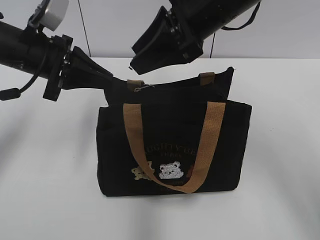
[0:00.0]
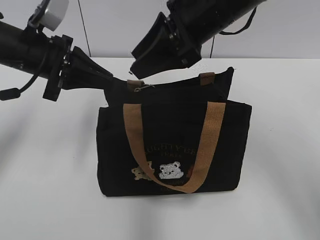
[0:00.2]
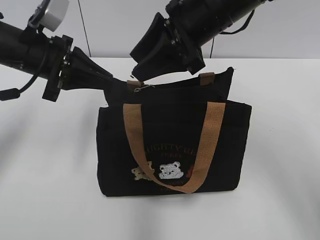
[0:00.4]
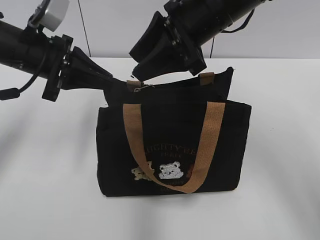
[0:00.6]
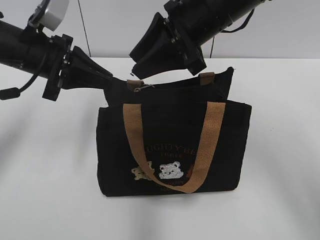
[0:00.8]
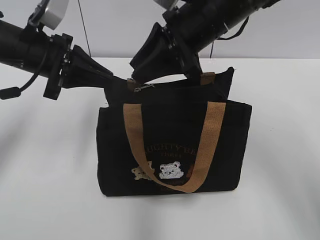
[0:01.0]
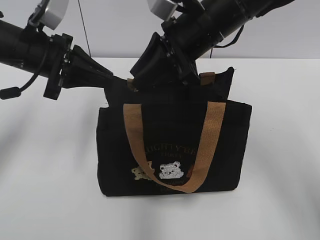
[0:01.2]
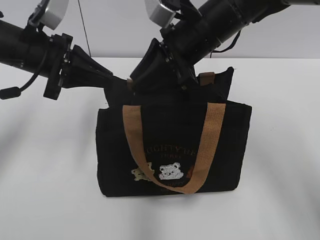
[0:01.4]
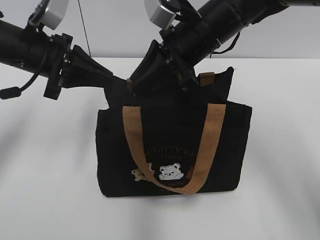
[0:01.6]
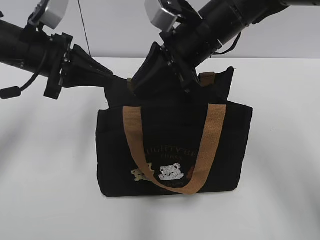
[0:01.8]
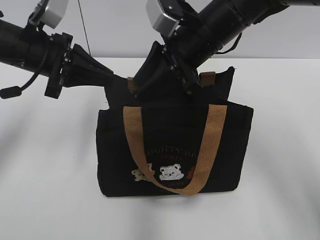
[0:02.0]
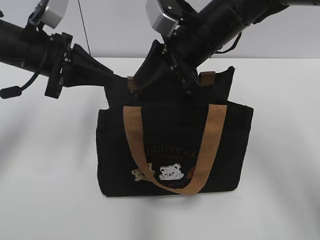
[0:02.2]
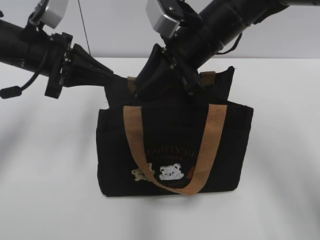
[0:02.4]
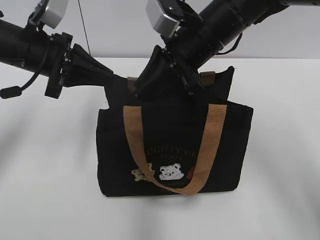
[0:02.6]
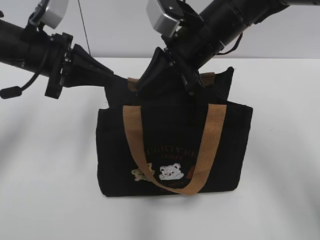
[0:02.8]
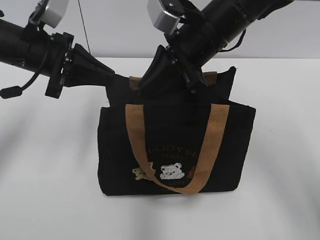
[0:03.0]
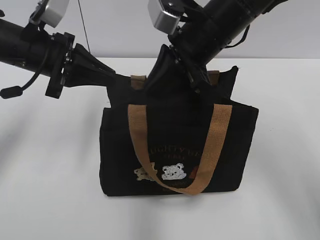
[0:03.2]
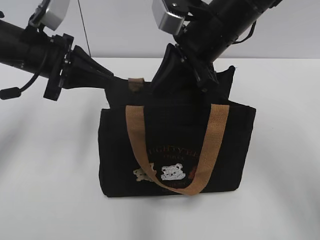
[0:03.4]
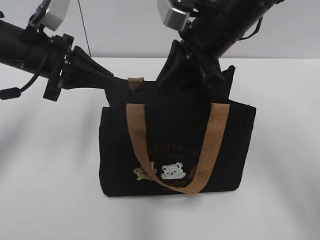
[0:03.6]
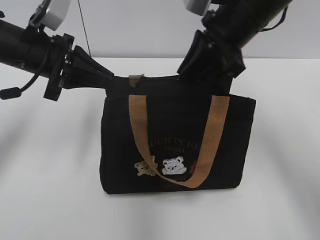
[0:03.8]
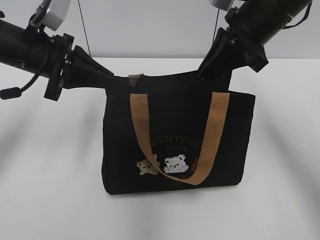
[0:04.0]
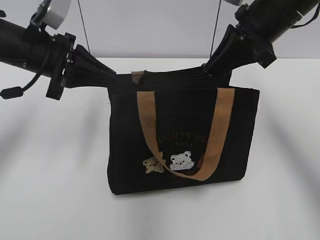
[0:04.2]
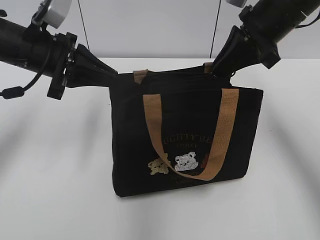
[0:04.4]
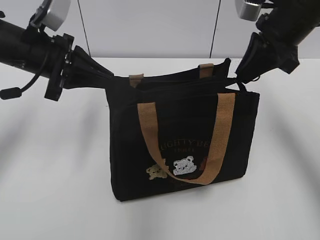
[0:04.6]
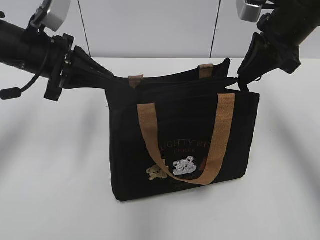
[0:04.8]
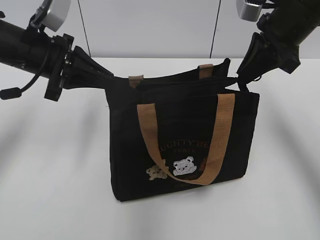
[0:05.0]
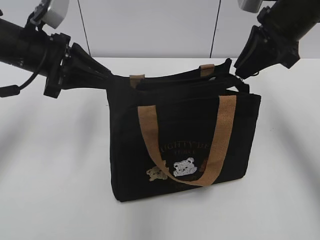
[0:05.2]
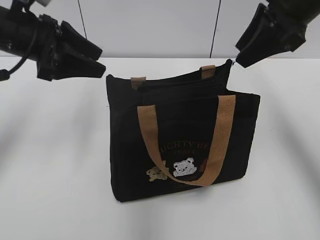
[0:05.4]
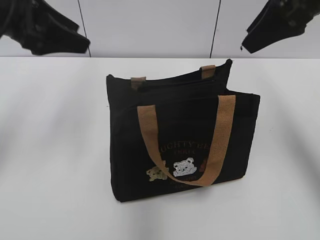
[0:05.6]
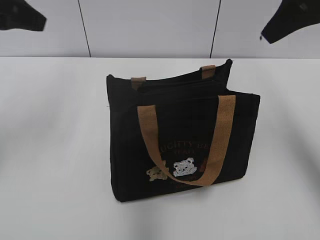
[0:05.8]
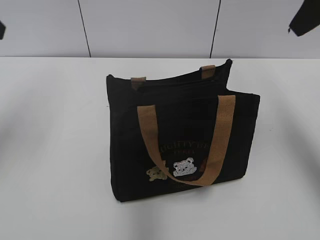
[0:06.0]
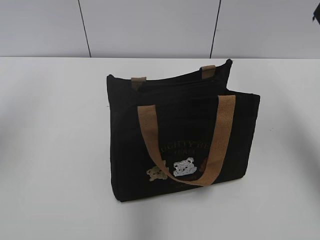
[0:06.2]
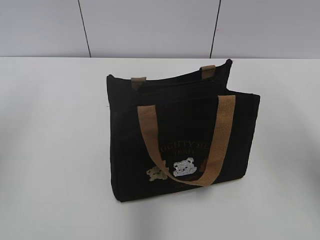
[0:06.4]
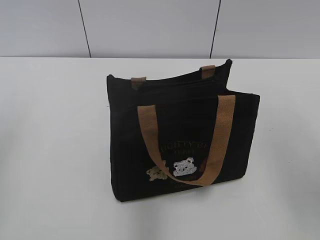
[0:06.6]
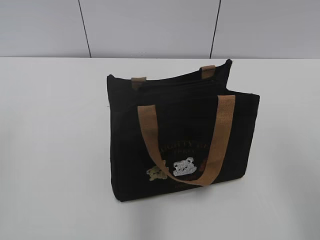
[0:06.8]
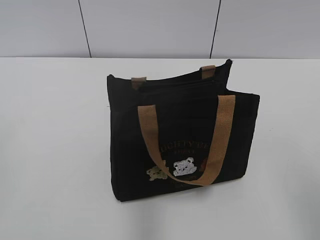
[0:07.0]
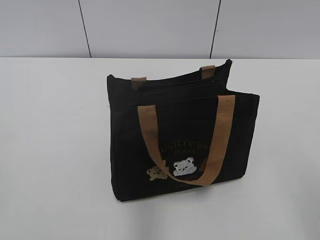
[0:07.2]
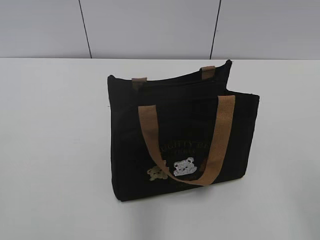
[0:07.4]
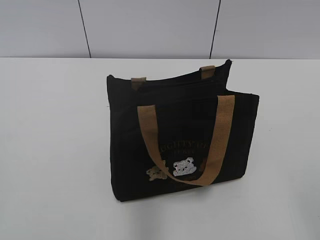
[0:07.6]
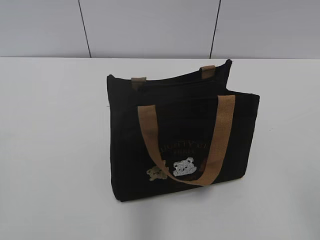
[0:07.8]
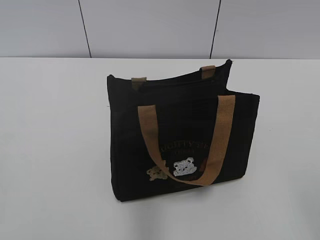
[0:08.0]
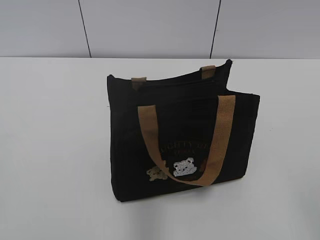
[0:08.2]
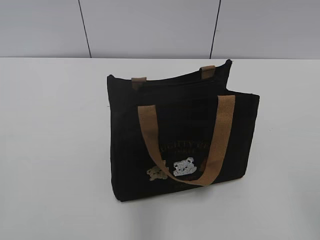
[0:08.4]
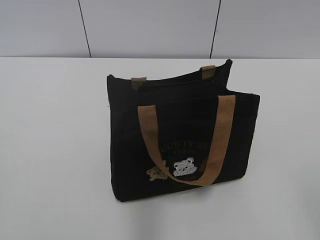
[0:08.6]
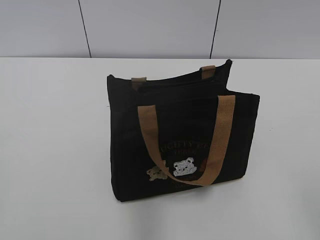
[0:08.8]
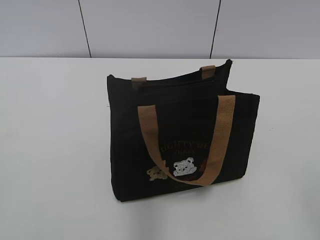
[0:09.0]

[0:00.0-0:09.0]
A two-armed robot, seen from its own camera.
Step, 0:00.0 to 0:05.2: Pull open the zipper with your right hand.
0:00.0 to 0:01.6: The right gripper heads downward, covering approximately 5 cm, and closes its fingers.
0:01.6 to 0:03.0: The right gripper closes its fingers.
0:03.0 to 0:04.4: The right gripper heads to the right, covering about 10 cm.
0:04.4 to 0:06.0: The right gripper moves upward and backward, roughly 10 cm, and opens. Meanwhile the left gripper travels upward, to the left and backward by some 15 cm, and opens up.
0:06.0 to 0:07.6: The two grippers go about 30 cm backward.
